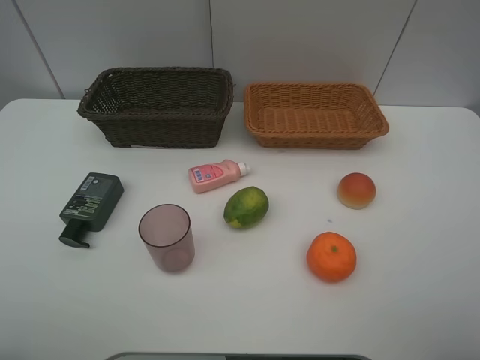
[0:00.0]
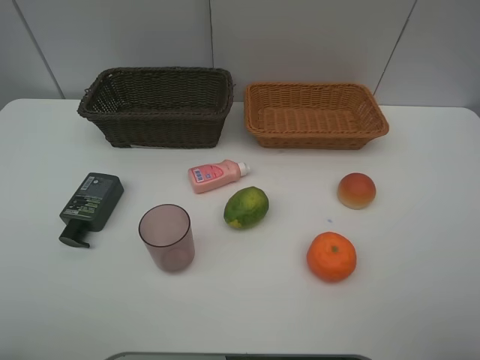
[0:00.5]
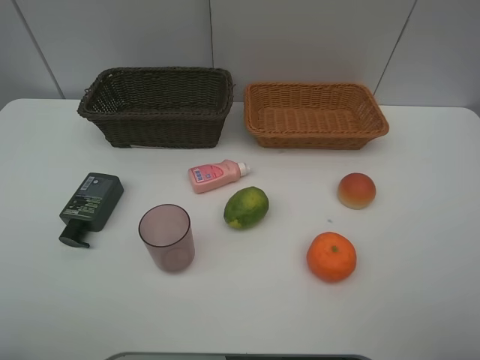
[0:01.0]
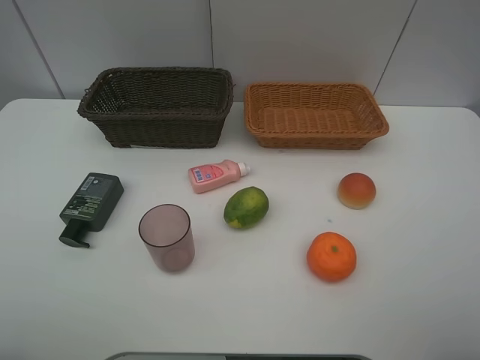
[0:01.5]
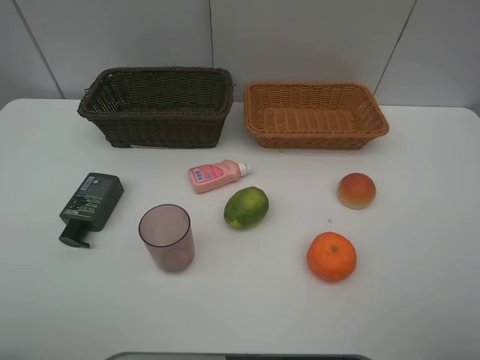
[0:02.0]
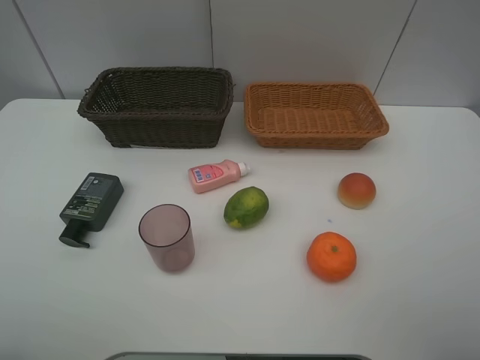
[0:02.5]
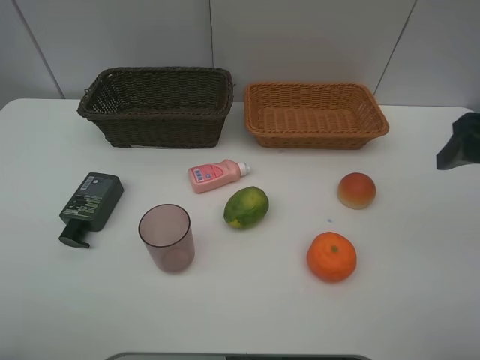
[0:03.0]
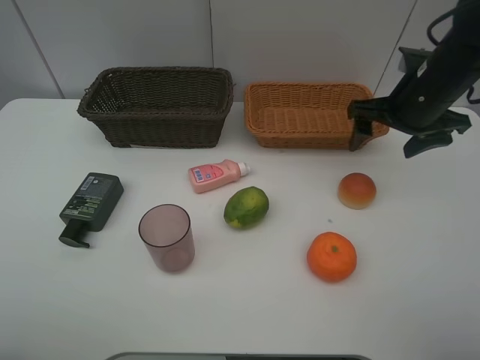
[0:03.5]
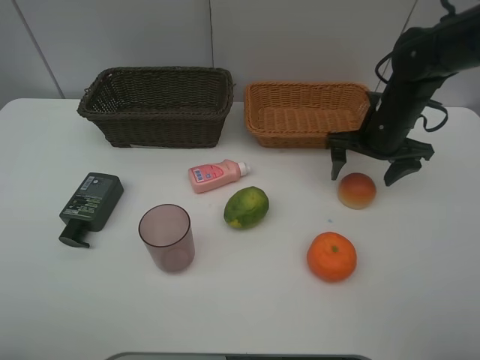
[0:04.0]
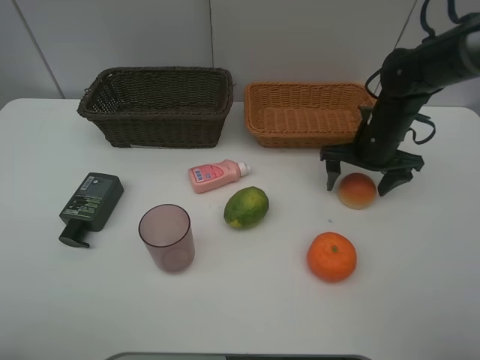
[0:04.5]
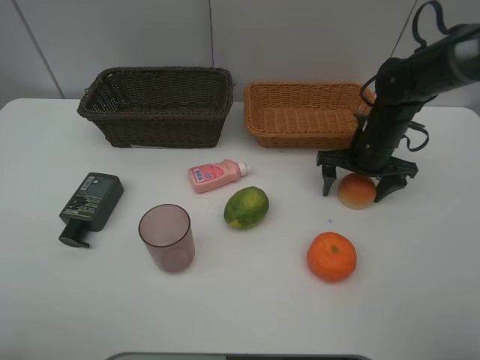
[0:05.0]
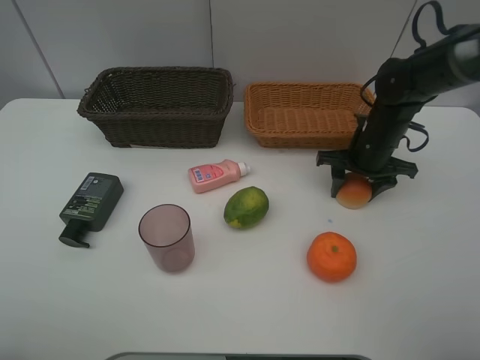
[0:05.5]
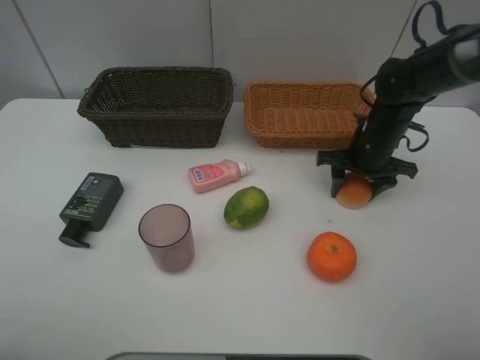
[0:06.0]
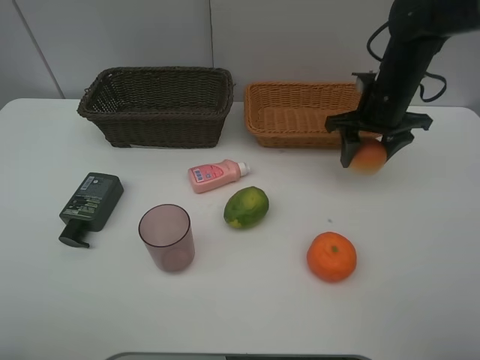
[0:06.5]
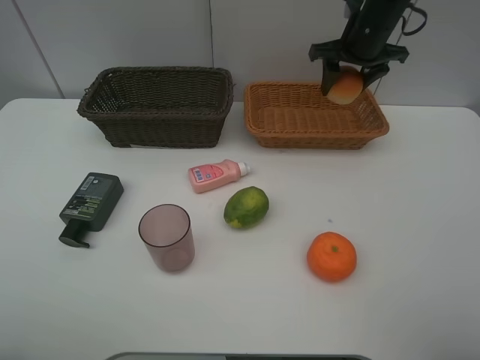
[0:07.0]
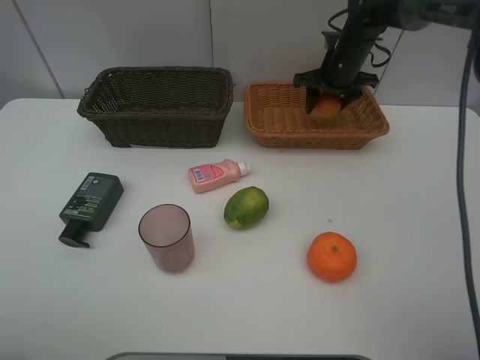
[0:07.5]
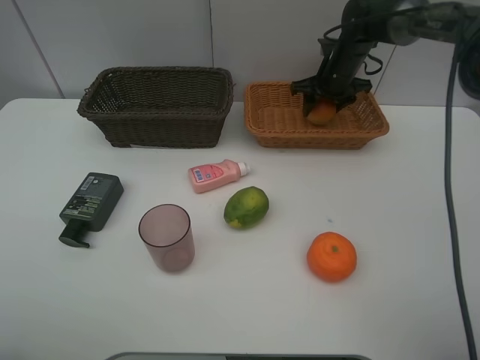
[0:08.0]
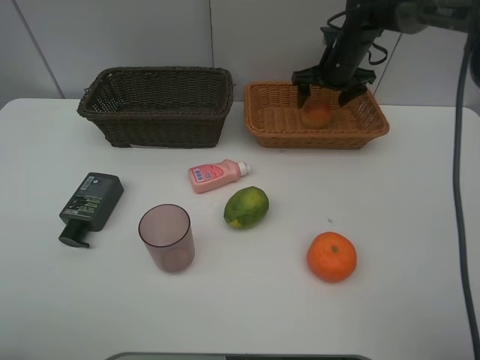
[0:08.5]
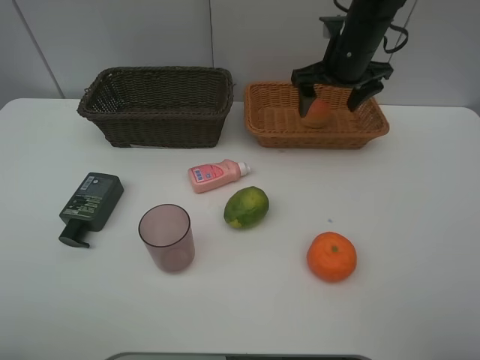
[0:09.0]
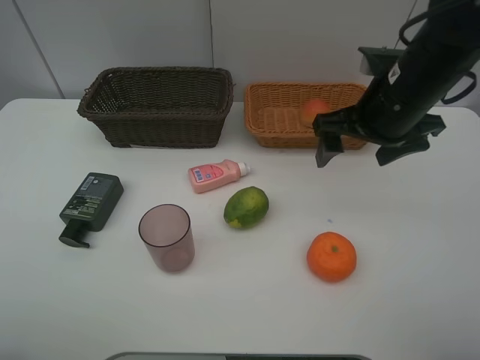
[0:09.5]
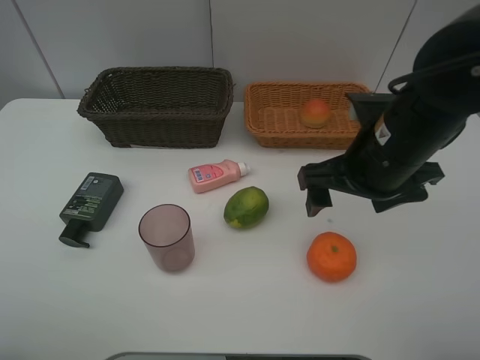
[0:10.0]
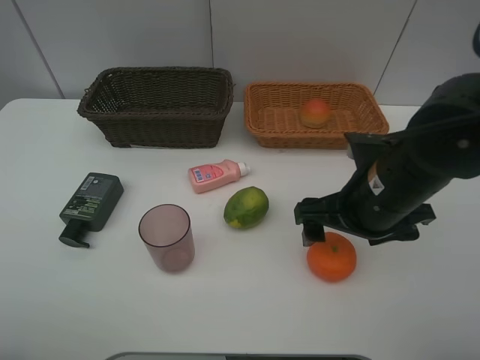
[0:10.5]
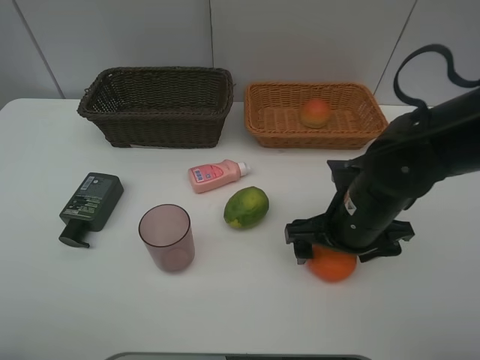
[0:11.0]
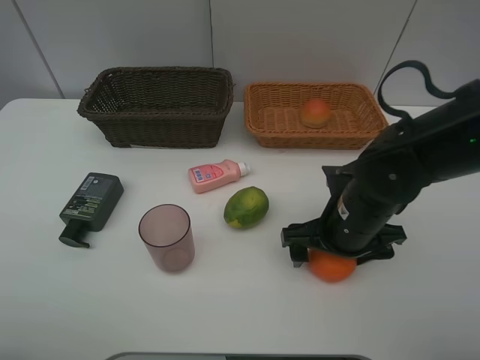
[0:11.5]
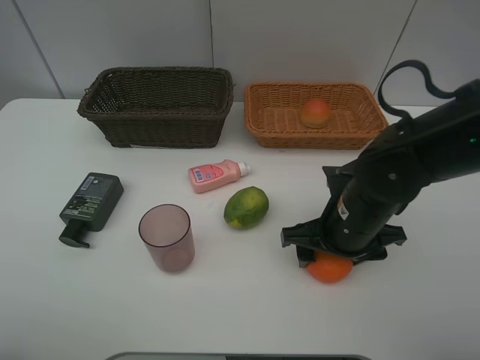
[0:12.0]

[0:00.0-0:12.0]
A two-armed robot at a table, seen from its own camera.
Task of the whole recording: place multiple objects separately in different baskets.
0:00.0 to 0:02.0: Both grippers stay put.
0:02.0 to 0:04.0: The right gripper travels forward by about 35 cm.
0:04.0 to 0:06.0: The right gripper closes its fingers.
0:06.0 to 0:08.0: The right gripper is displaced forward by some 15 cm.
0:08.0 to 0:10.0: The right gripper travels backward by approximately 30 cm, and opens its fingers.
0:10.0 to 0:12.0: The right gripper travels downward by some 10 cm, and closes up.

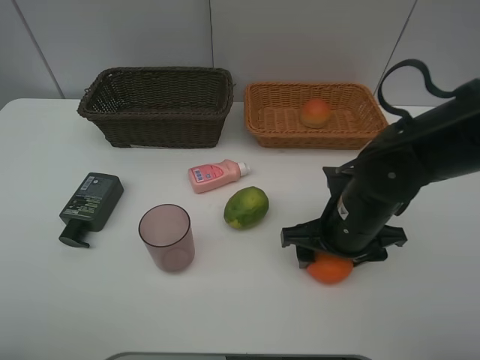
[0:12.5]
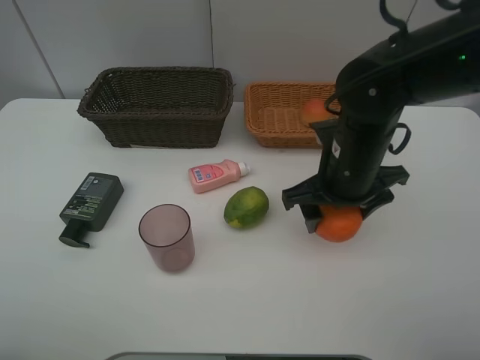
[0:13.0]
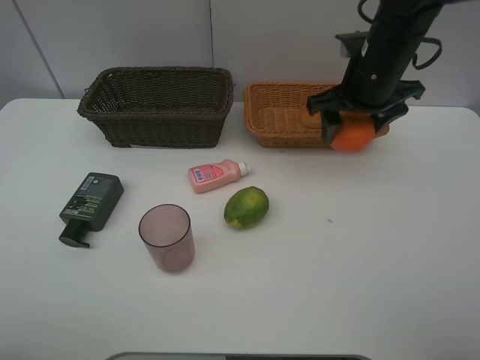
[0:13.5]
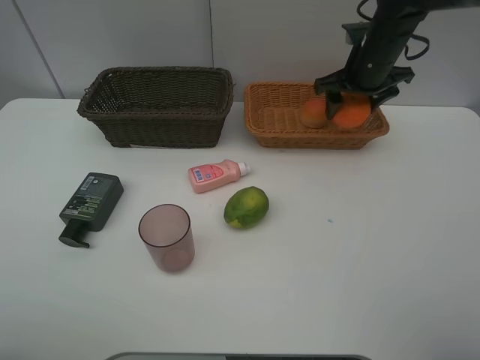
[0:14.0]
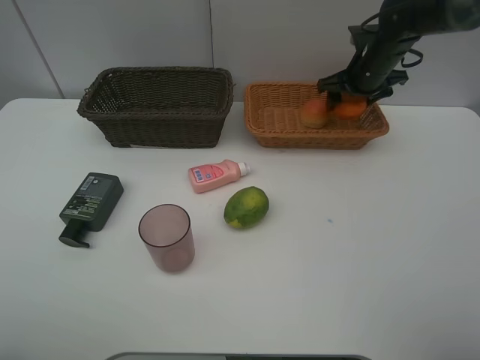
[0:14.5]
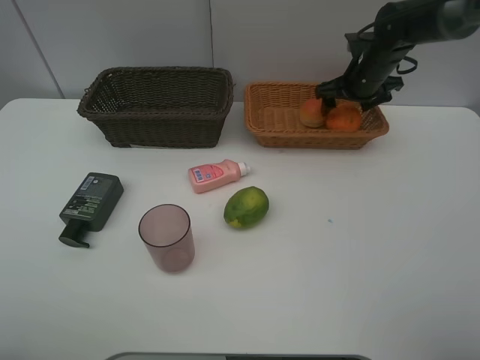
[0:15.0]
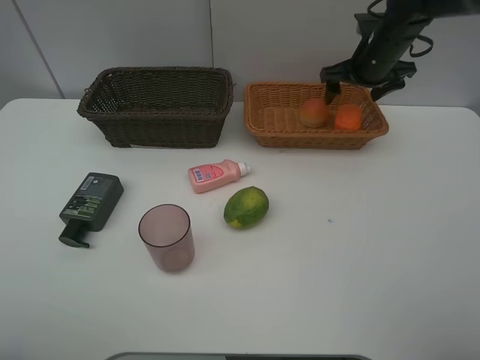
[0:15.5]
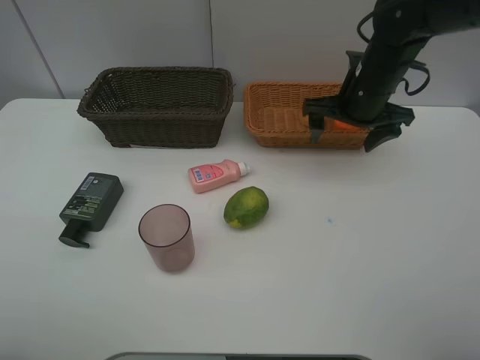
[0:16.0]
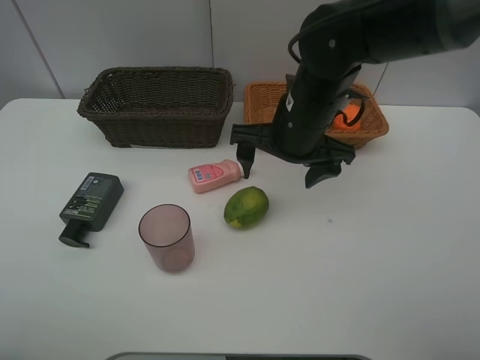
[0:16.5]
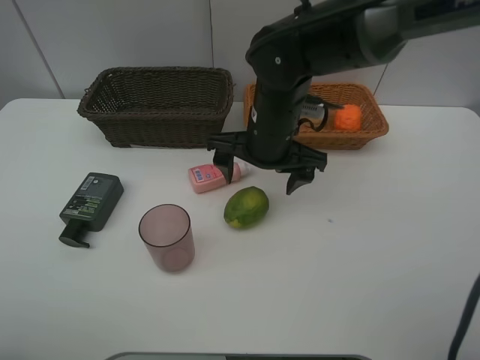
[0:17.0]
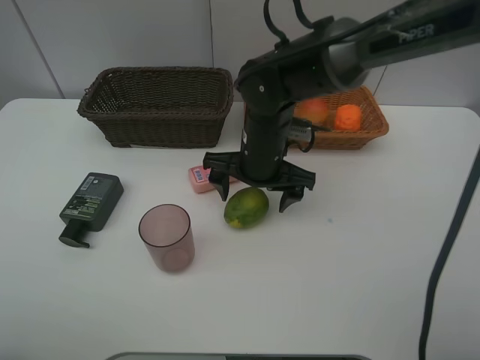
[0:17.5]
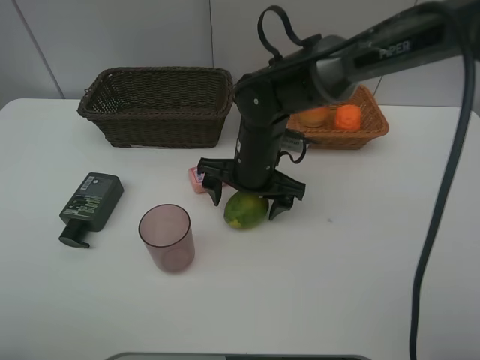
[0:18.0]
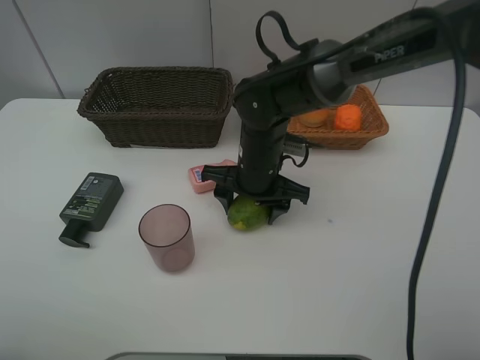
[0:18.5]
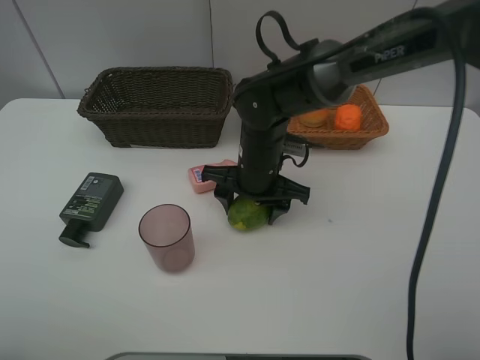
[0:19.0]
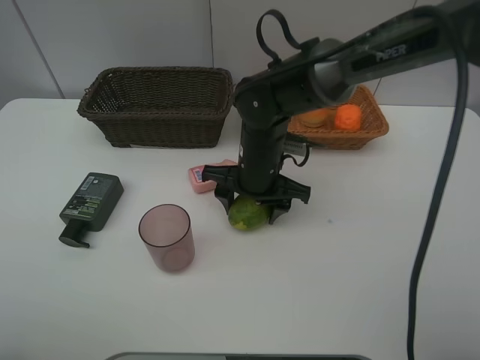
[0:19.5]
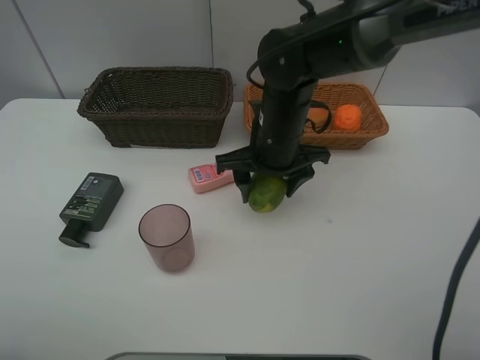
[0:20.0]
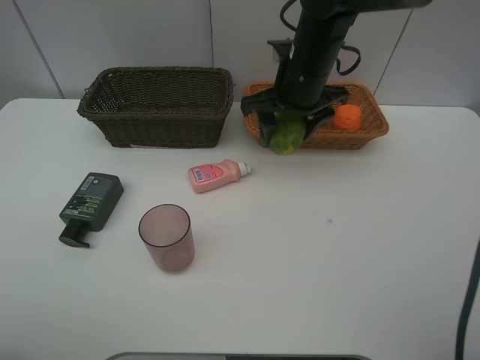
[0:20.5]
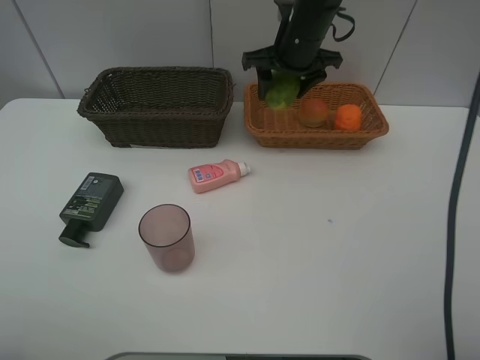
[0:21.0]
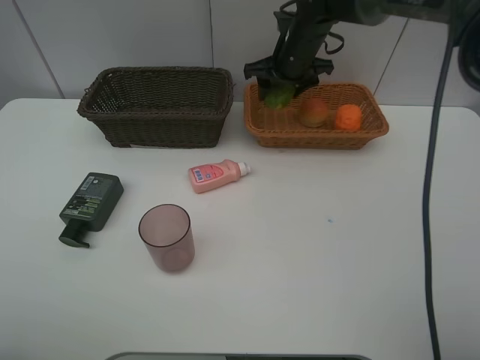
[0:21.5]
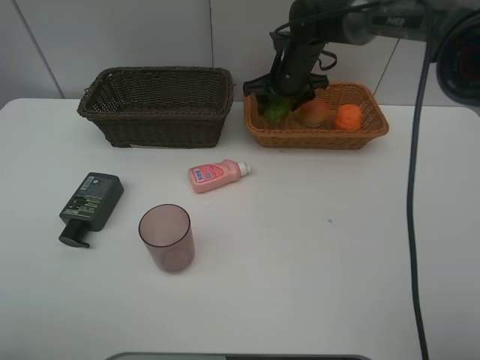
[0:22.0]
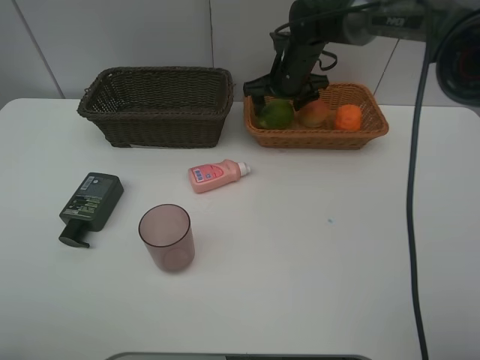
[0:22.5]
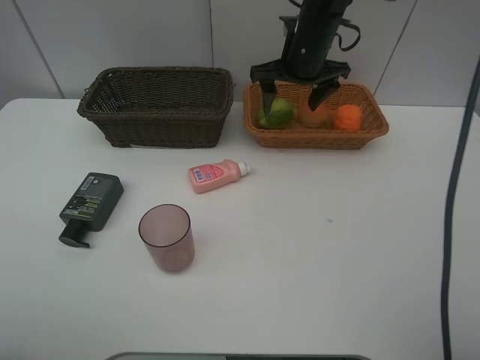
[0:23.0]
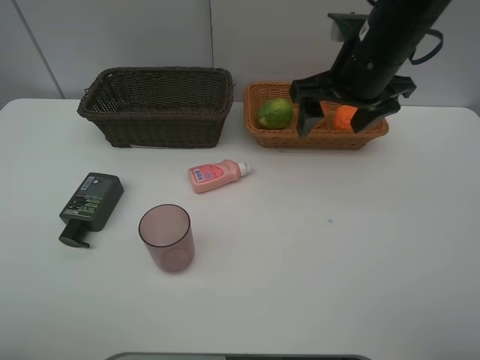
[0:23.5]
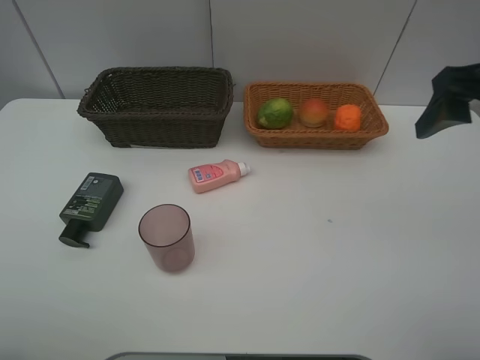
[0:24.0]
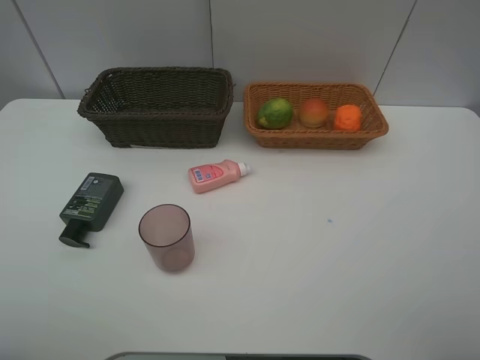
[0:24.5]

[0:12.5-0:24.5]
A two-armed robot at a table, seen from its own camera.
Task of the whole recording: place multiple objects separately in different baskets.
0:12.5 to 0:14.5: The right gripper goes roughly 25 cm forward.
0:14.5 to 0:16.5: The right gripper goes approximately 25 cm backward and to the left, and opens its fingers.
0:16.5 to 0:18.5: The right gripper heads downward, covering roughly 10 cm, and closes up.
0:18.5 to 0:20.5: The right gripper moves upward, forward and to the right, some 15 cm.
0:20.5 to 0:22.5: The right gripper goes some 10 cm forward and downward, and opens.
0:22.5 to 0:24.5: The right gripper shifts about 50 cm backward, to the right and upward.

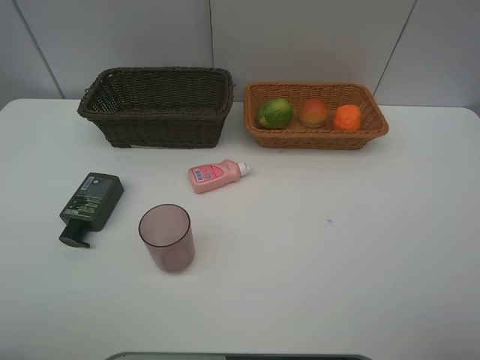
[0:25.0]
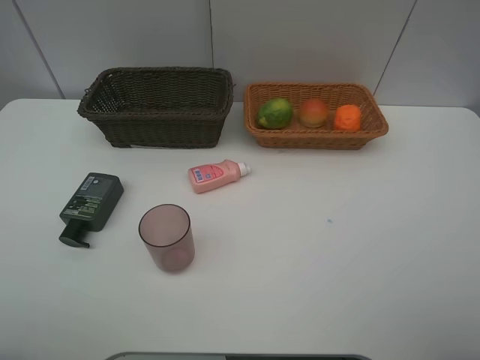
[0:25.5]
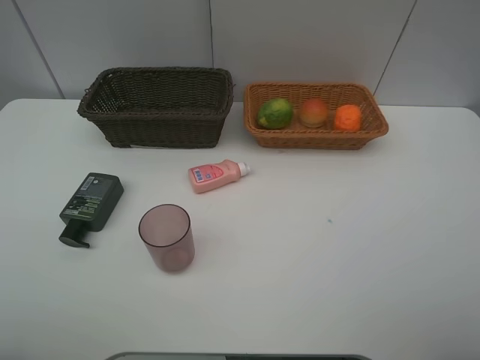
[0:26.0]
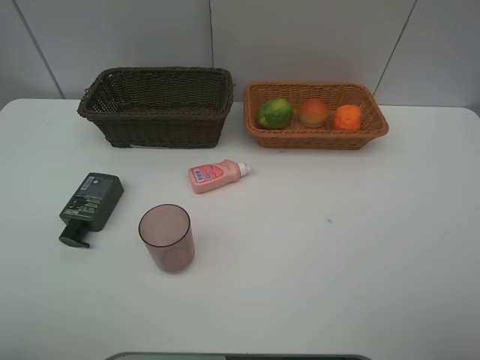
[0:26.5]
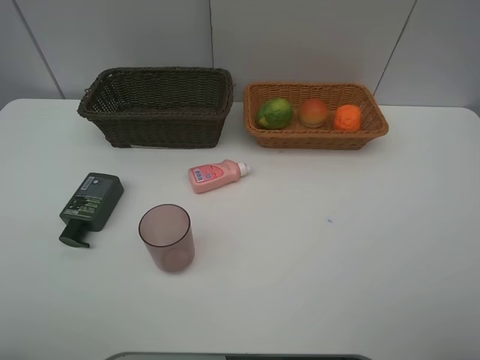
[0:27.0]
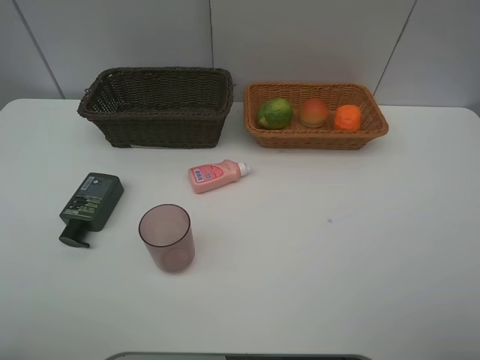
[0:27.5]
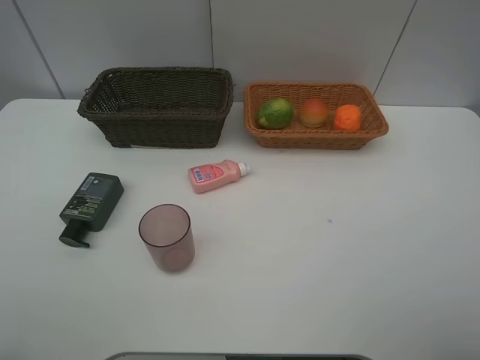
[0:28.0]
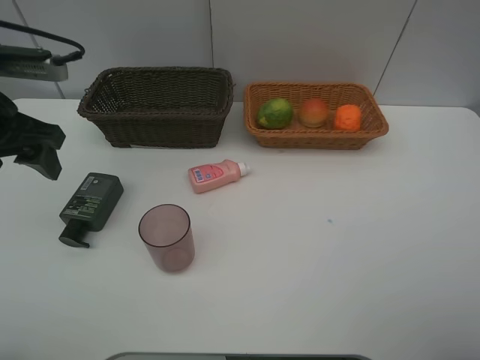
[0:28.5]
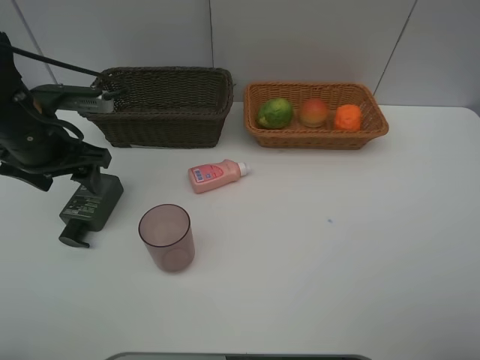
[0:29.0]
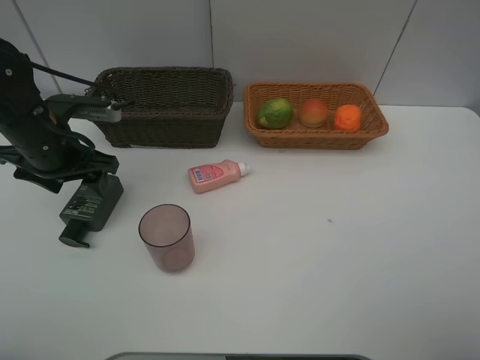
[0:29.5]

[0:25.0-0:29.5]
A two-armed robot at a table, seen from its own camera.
Task of the whole recording: place multiple objects separately in different baskets.
0:27.0 to 0:29.5: The left gripper shifts about 35 cm forward and downward.
